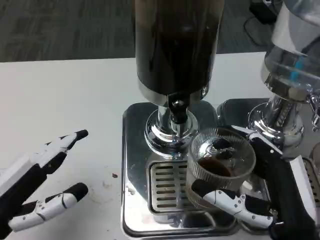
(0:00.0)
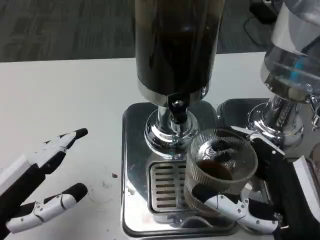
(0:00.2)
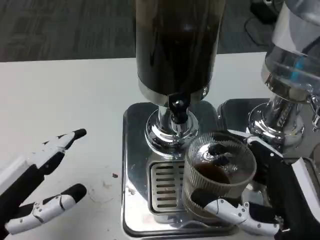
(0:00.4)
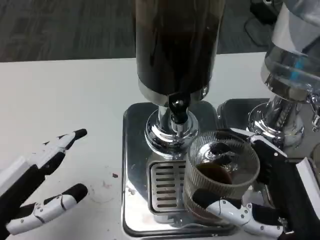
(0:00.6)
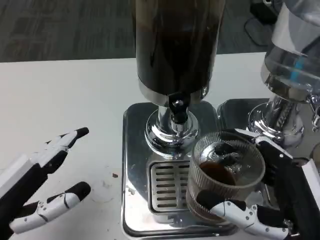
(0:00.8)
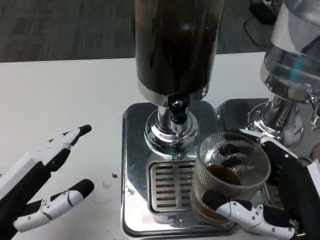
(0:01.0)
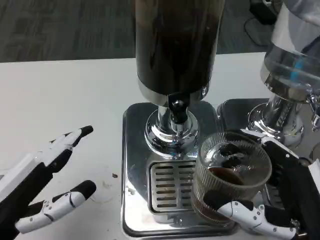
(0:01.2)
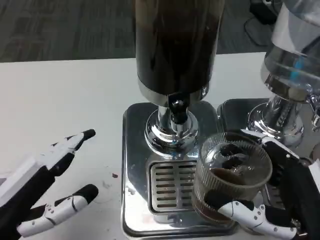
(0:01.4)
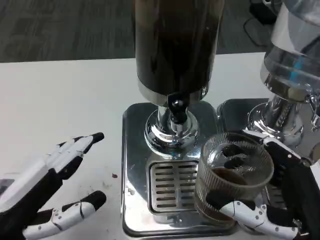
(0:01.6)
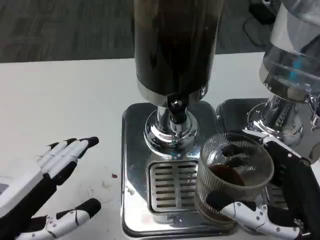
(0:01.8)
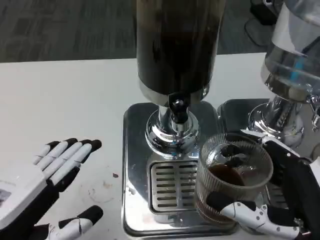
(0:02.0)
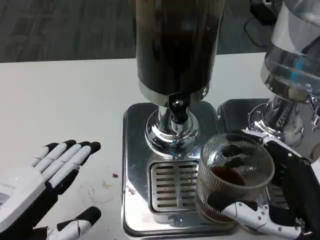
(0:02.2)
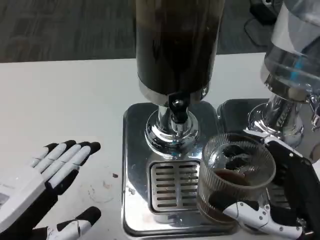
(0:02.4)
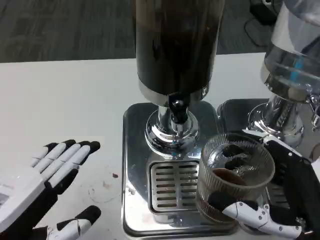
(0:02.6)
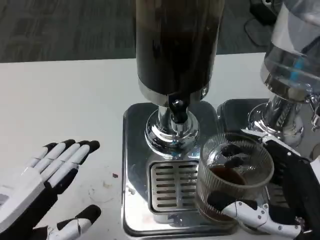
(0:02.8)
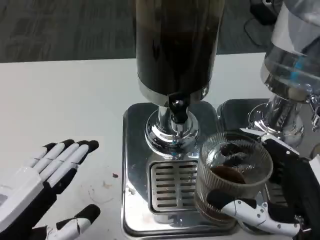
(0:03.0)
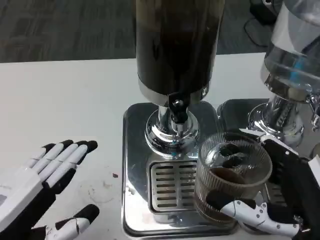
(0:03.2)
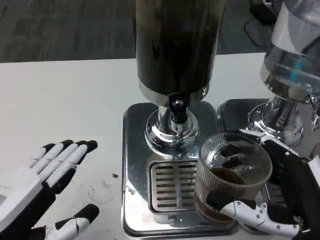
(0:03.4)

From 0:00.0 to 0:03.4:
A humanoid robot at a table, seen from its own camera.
Task of the whole recording: Grasp the cup under the faucet to collect the drink, then remove the cup.
From 0:00.0 to 0:03.4: There are only small adjustments of the hands.

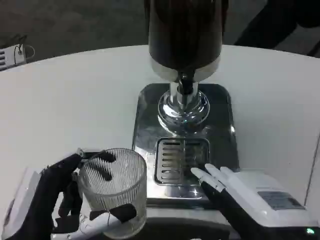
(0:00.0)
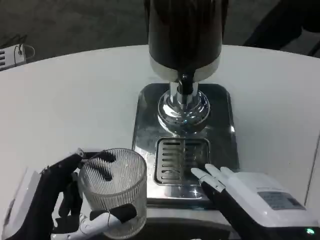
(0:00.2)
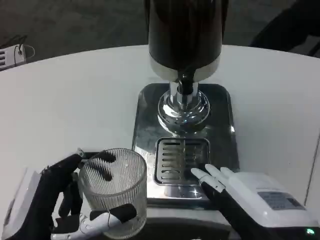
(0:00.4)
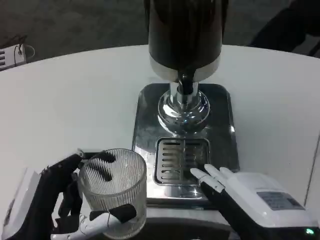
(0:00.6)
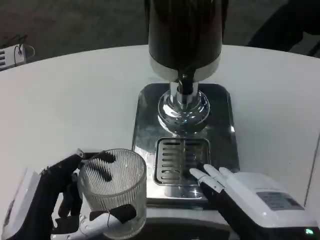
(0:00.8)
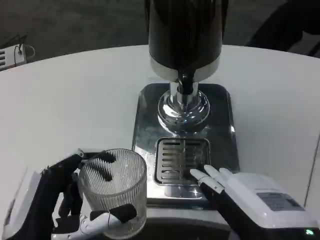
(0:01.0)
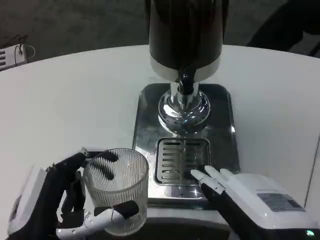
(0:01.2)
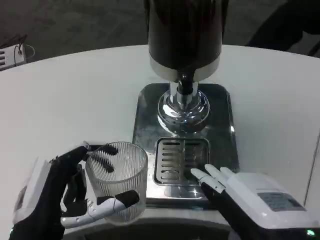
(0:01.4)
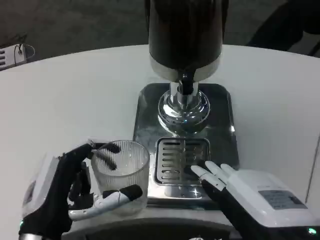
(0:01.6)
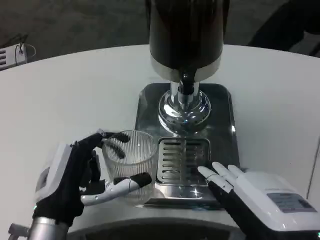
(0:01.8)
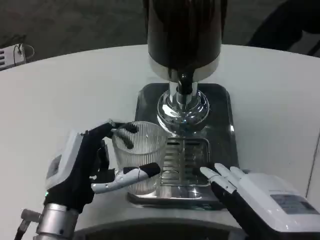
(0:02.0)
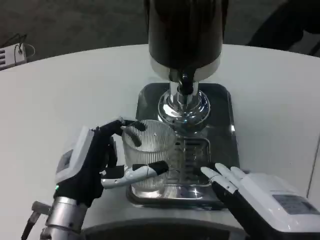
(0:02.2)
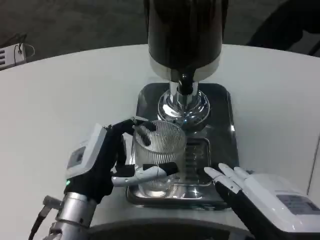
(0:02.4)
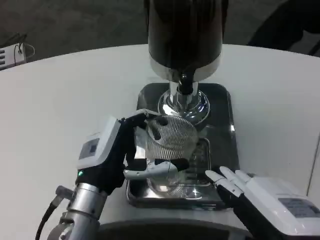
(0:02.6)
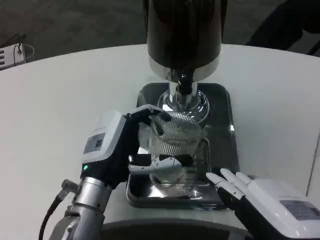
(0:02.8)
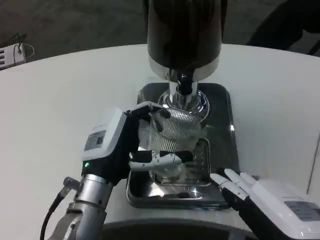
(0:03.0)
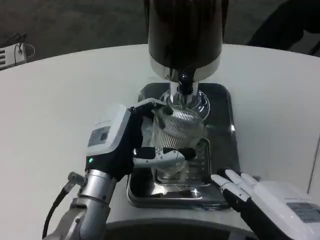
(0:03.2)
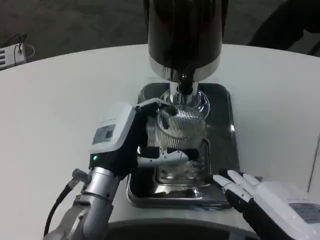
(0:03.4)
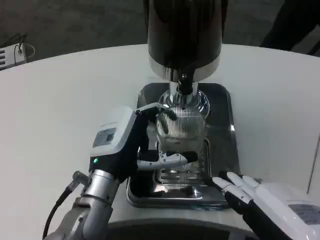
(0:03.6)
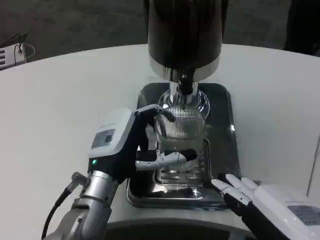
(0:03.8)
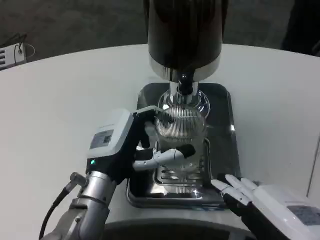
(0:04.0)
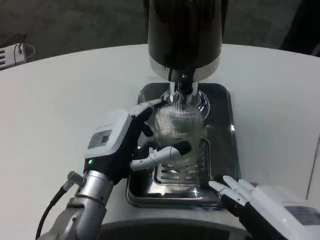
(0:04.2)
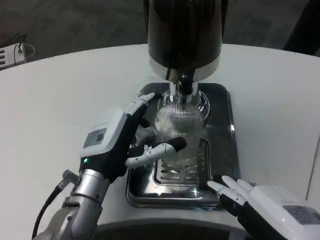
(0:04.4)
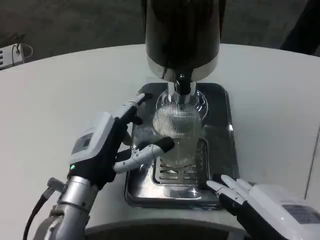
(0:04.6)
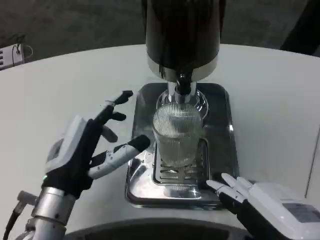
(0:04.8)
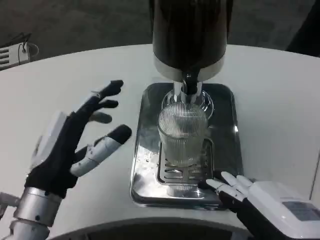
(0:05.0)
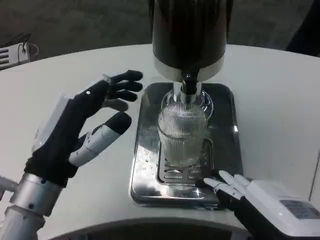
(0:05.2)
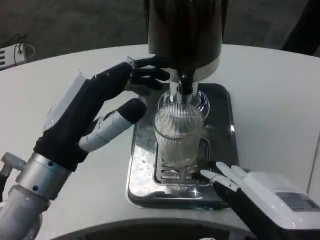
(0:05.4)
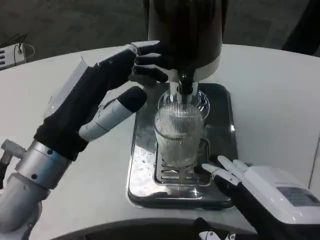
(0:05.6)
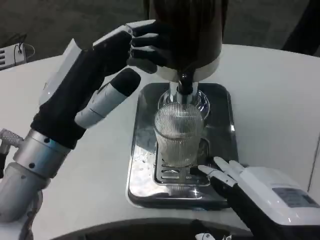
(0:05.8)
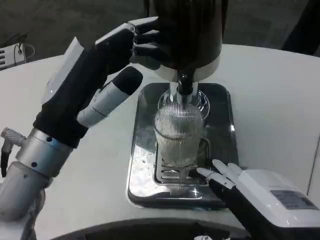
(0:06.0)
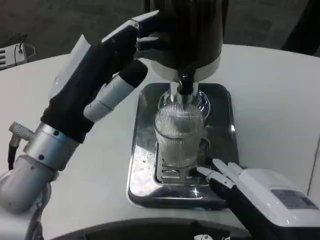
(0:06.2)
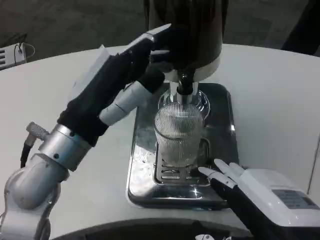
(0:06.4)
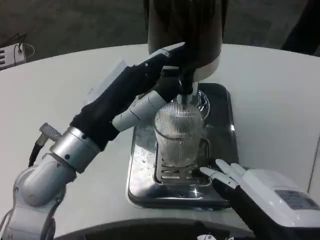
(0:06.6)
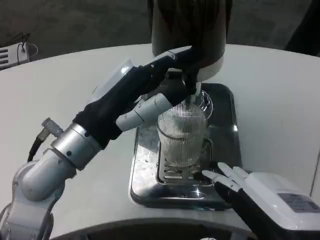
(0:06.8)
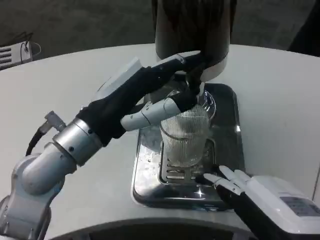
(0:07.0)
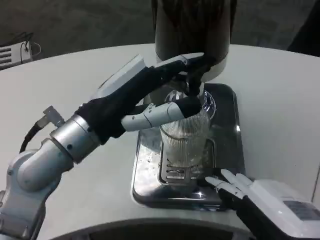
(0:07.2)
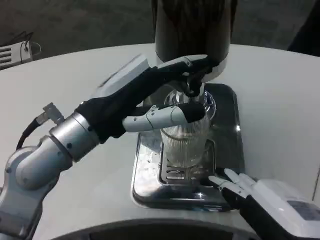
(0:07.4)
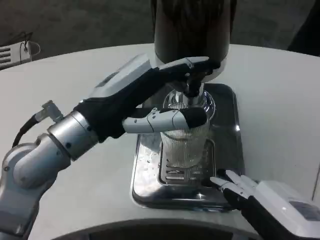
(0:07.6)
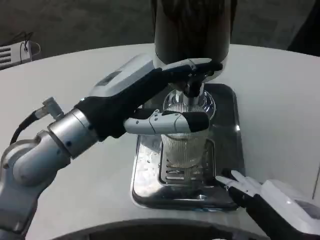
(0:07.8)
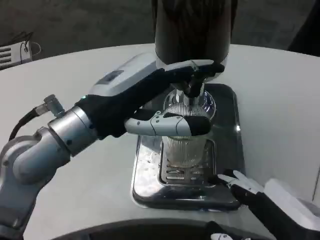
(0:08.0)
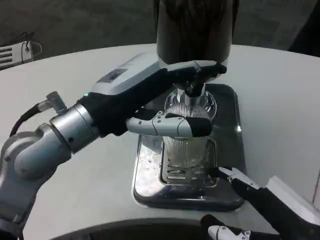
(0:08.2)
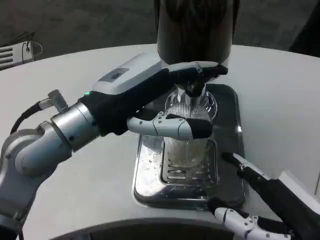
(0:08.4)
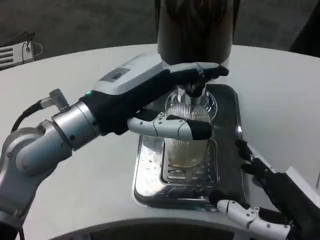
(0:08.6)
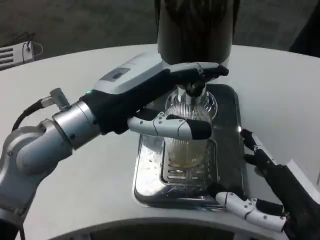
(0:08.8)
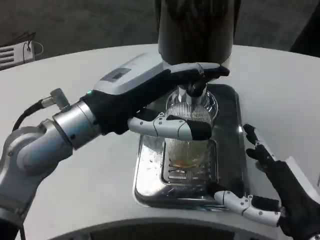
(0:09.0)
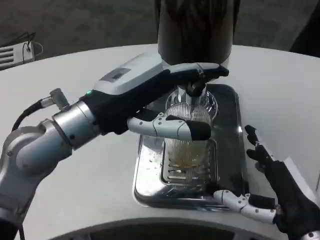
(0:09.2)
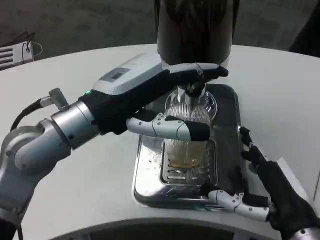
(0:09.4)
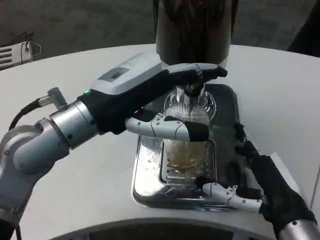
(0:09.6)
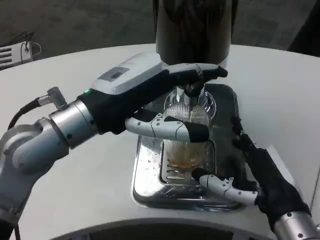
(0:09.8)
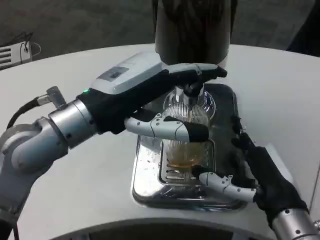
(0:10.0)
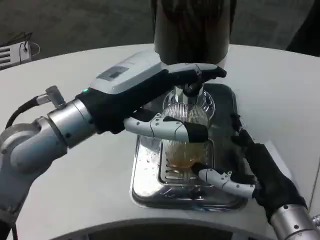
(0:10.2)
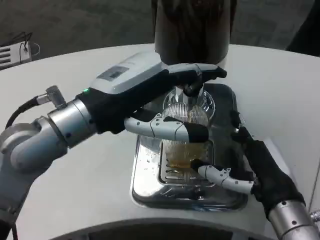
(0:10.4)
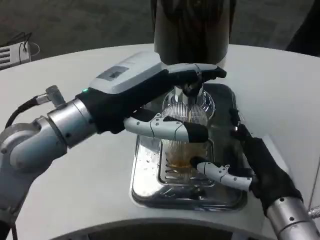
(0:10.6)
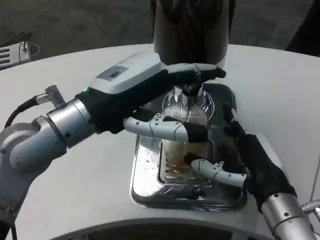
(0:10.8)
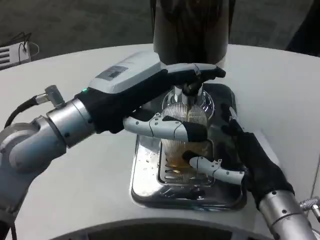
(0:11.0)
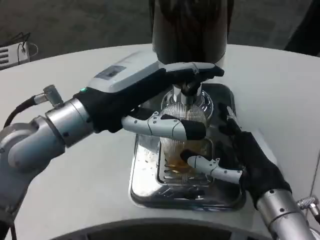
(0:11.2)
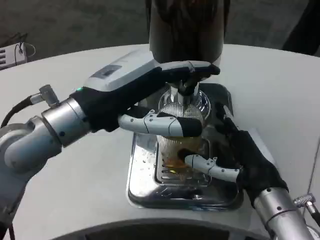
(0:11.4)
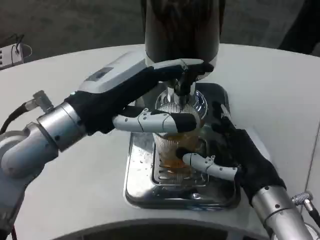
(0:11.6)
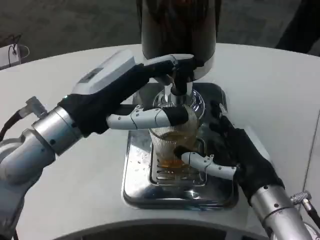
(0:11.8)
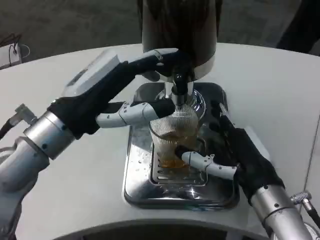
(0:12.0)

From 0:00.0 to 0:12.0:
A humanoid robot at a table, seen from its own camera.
Task of the whole recording: Grasp the cup under the faucet to collect the drink, then remove the cup.
From 0:00.0 to 0:01.6: The left hand shifts approximately 5 cm forward.
From 0:01.6 to 0:03.0: The left hand shifts roughly 10 cm forward and to the right.
From 0:03.0 to 0:04.4: The hands make only small movements.
From 0:04.4 to 0:06.0: The left hand moves upward and backward, approximately 10 cm.
From 0:07.6 to 0:09.0: The right hand moves forward, some 5 cm.
From 0:09.0 to 0:10.4: The right hand is displaced forward by roughly 5 cm.

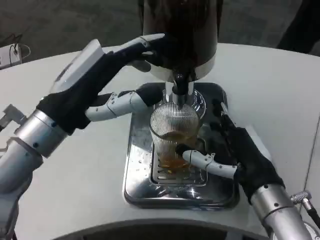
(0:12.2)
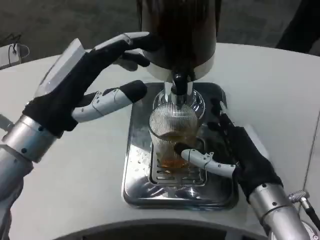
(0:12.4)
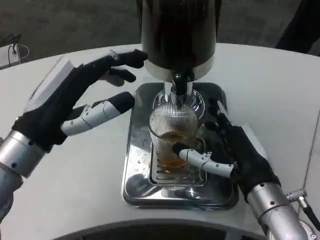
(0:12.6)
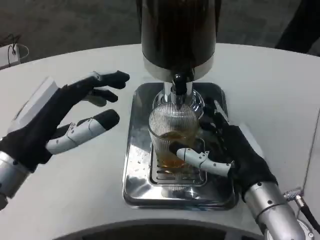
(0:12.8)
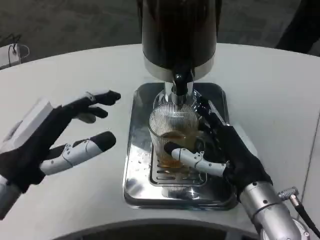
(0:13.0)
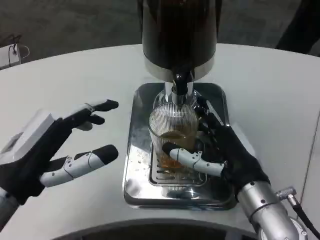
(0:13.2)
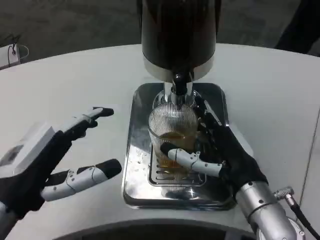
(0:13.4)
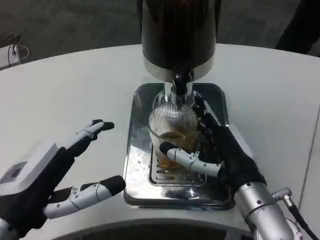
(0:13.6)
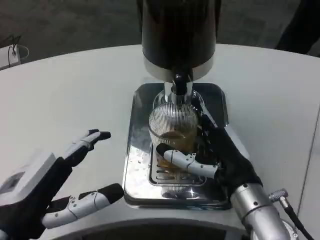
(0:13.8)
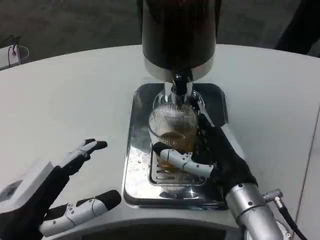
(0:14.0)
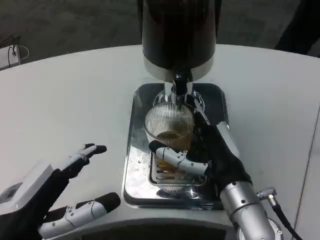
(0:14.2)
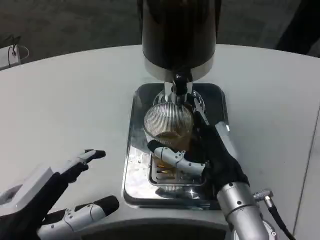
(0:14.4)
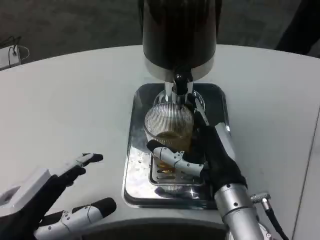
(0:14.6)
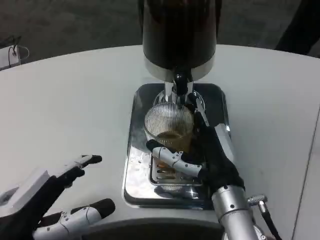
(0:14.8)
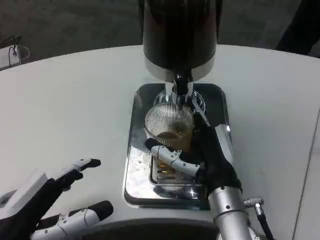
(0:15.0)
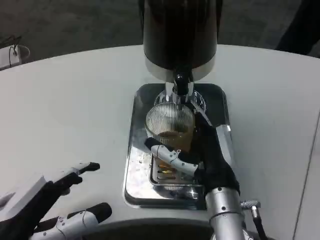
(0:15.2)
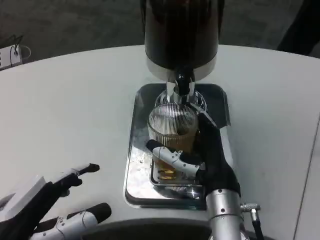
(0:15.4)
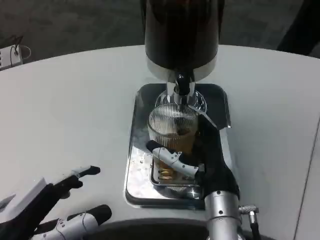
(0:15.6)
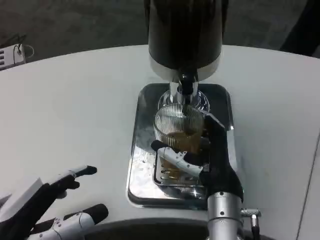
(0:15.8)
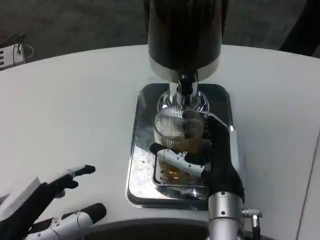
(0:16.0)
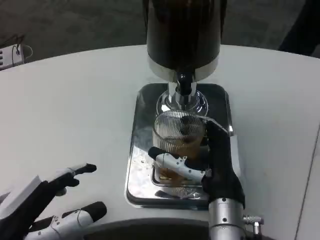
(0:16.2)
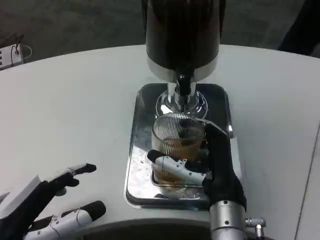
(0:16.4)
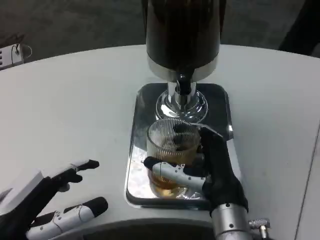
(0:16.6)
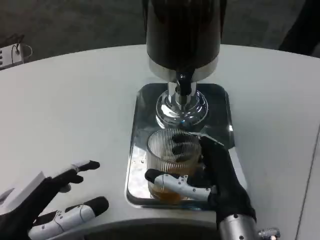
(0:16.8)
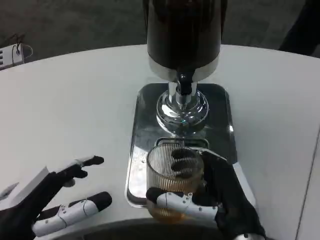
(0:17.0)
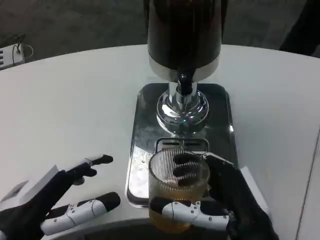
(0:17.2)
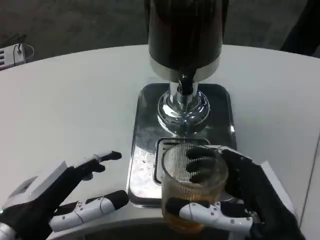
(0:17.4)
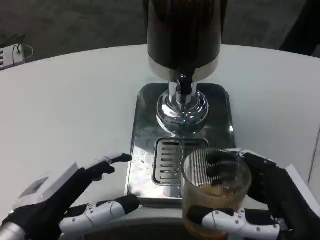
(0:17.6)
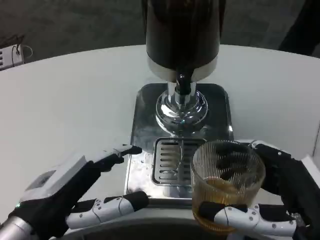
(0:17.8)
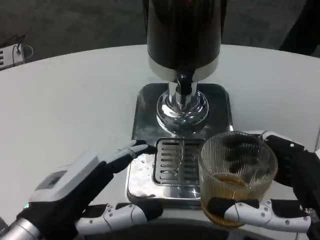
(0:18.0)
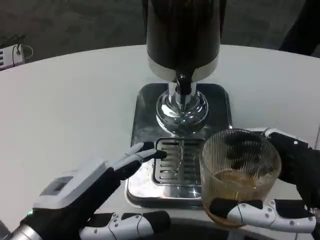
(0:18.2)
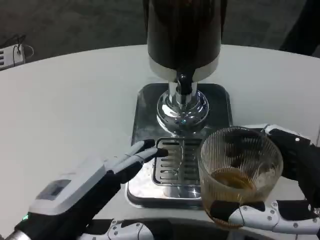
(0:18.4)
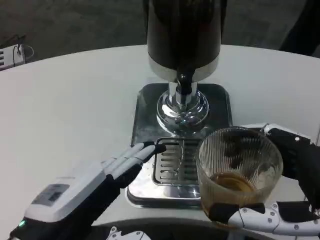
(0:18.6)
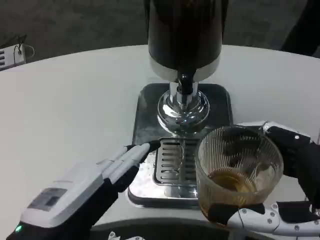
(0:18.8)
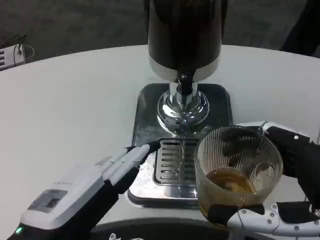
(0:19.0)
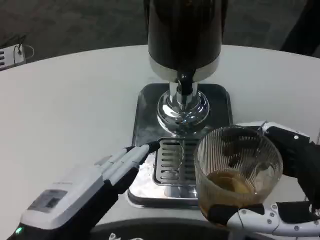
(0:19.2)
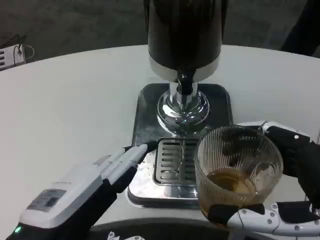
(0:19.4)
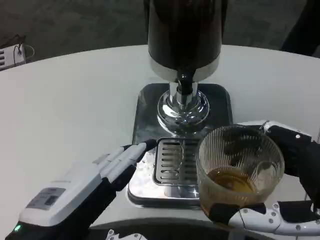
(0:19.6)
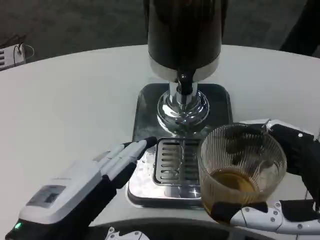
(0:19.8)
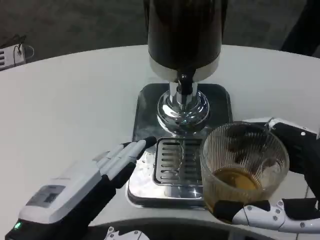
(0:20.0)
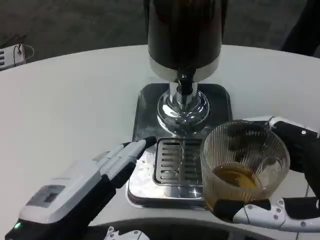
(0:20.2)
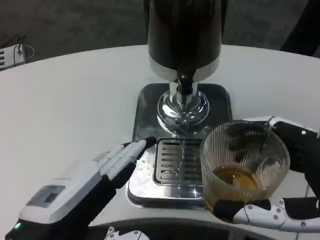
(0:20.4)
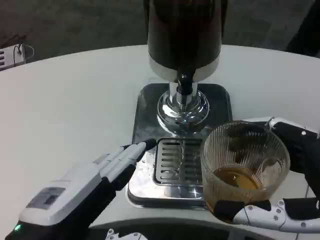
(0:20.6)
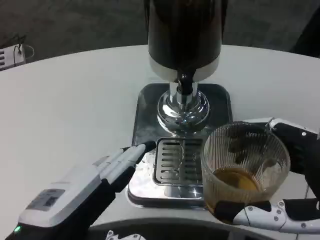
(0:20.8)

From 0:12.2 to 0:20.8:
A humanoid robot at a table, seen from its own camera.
Task of the whole recording: Grasp the cup under the faucet to collect the drink, then remove the cup.
From 0:12.2 to 0:13.6: The left hand travels backward and downward by some 10 cm.
From 0:13.6 to 0:15.0: The right hand moves roughly 5 cm.
From 0:15.0 to 0:16.6: The hands move only a little.
From 0:16.6 to 0:18.0: The right hand is displaced backward and to the right by roughly 15 cm.
From 0:18.0 to 0:19.4: The hands stay close to where they were, moving slightly.
From 0:19.4 to 0:20.8: Both hands stay put.
